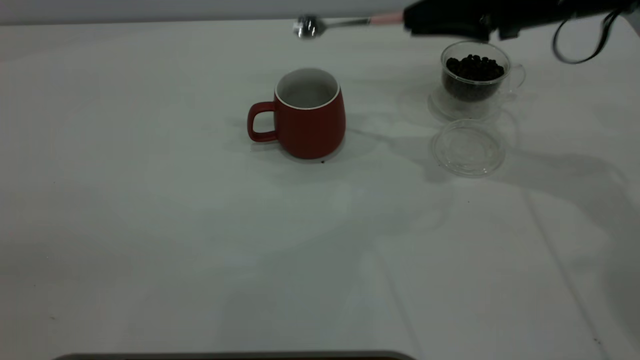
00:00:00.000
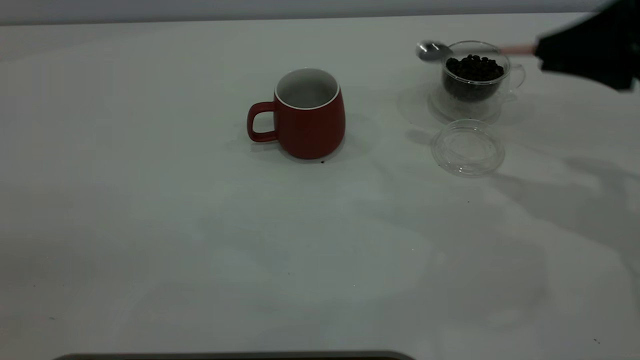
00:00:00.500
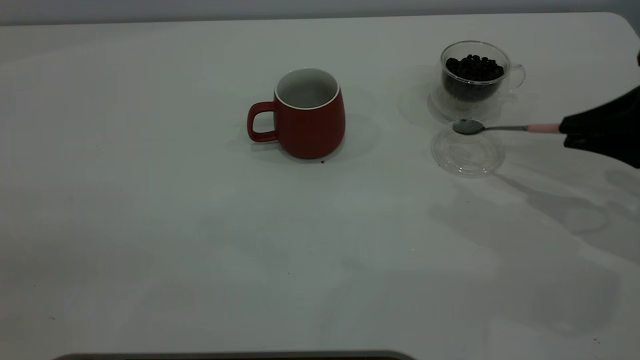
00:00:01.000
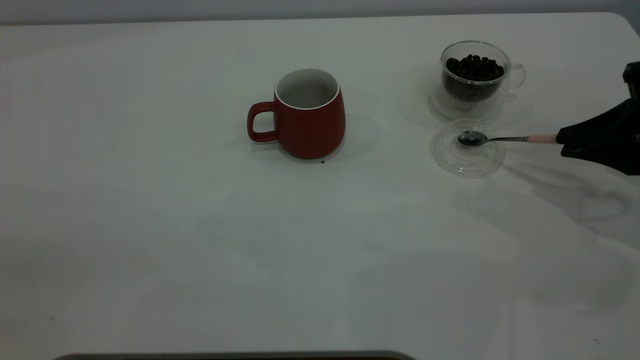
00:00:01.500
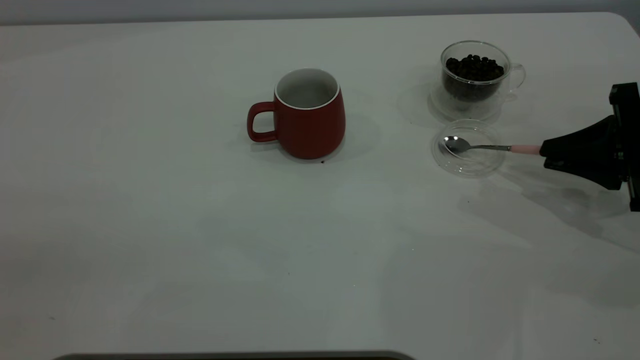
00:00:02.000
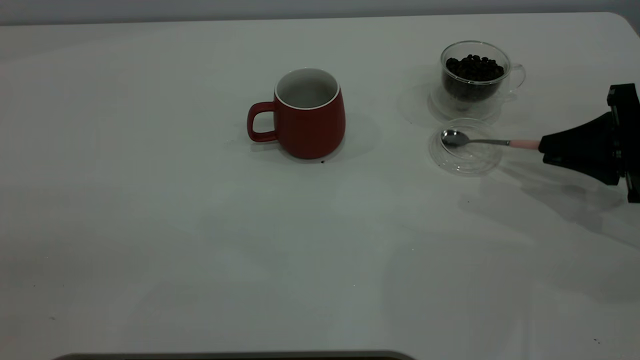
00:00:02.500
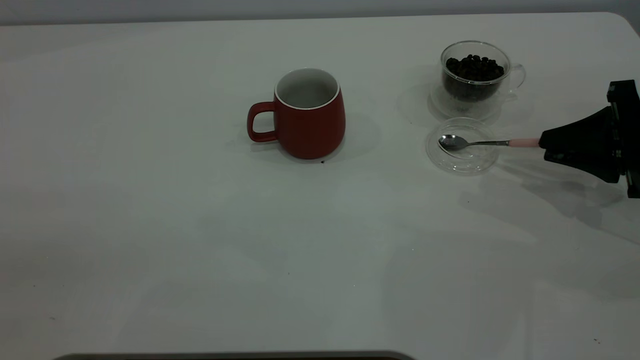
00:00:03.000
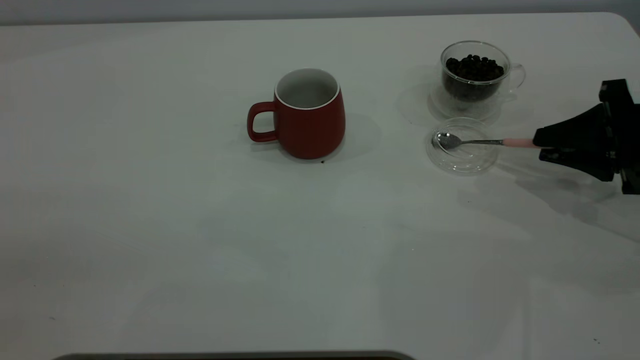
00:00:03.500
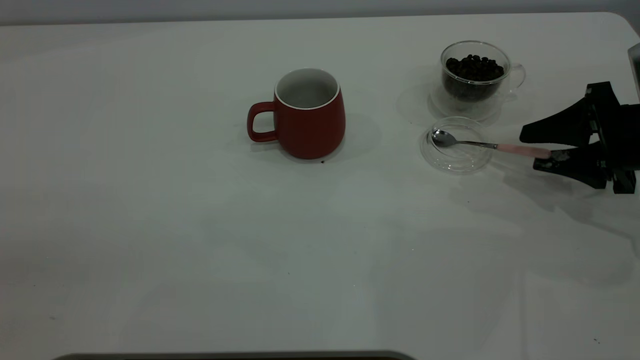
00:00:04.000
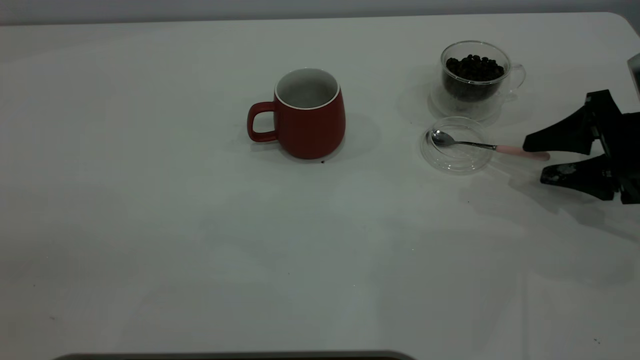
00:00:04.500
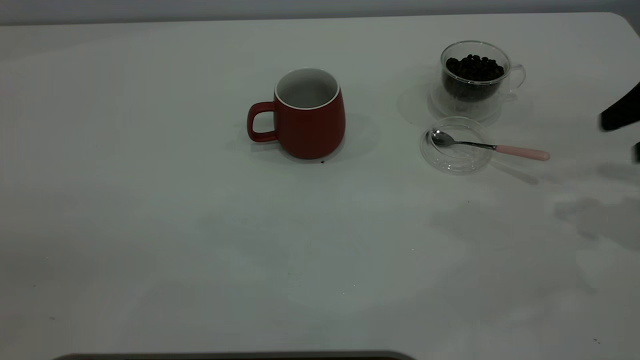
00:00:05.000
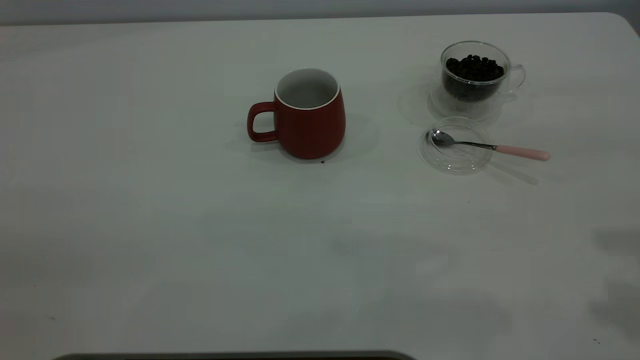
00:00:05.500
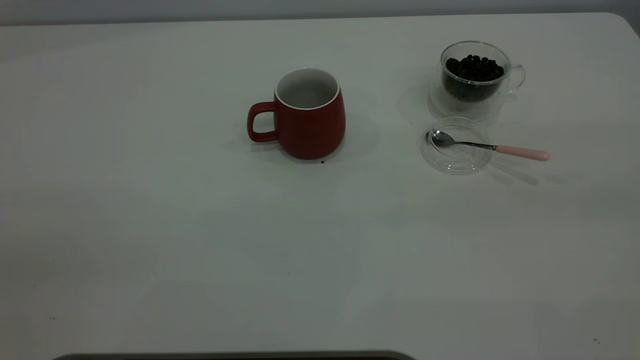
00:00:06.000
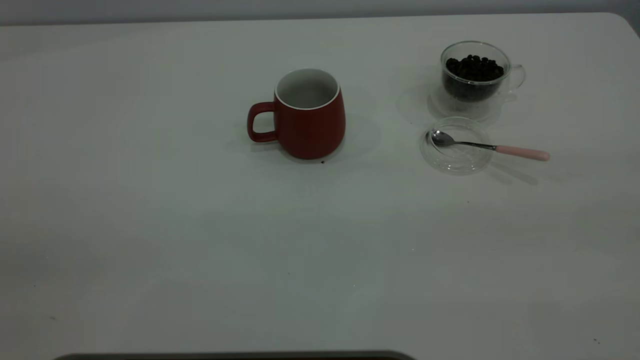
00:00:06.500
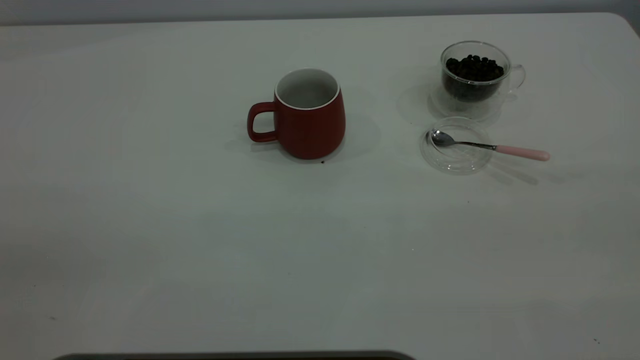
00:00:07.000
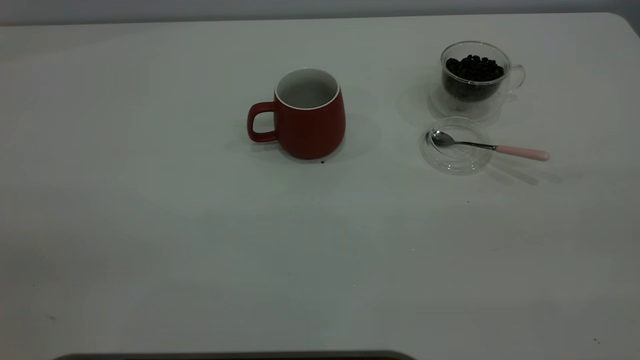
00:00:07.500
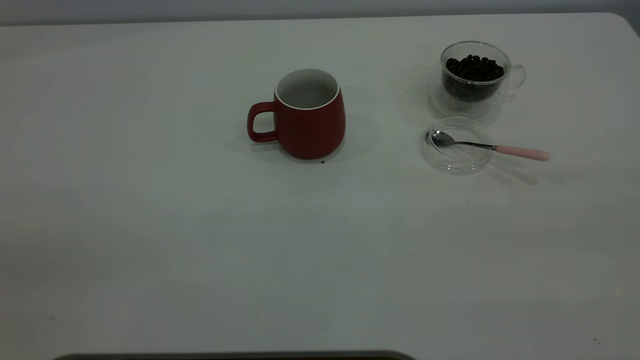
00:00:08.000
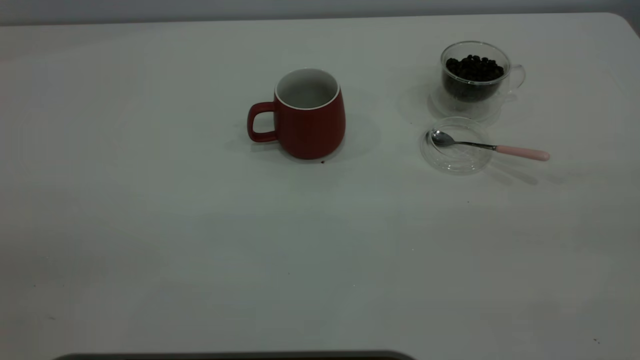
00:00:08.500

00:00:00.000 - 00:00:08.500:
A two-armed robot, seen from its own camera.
Task of the whole recording: the left gripper place the red cup in the center of the table, the right gripper take the pink spoon from the cup lid and scoop out the coffee beans from the coffee cup and put them into the red cup, the right gripper put the spoon back into the cup lid.
Step, 00:00:00.000 - 00:00:04.500: Place the spoon back in its original place.
00:00:00.000 - 00:00:02.000: The right gripper goes approximately 20 cm to the right, downward and backward.
00:00:02.000 - 00:00:04.000: The right gripper opens its fingers.
00:00:04.000 - 00:00:06.500: The right gripper is displaced upward and backward by about 40 cm.

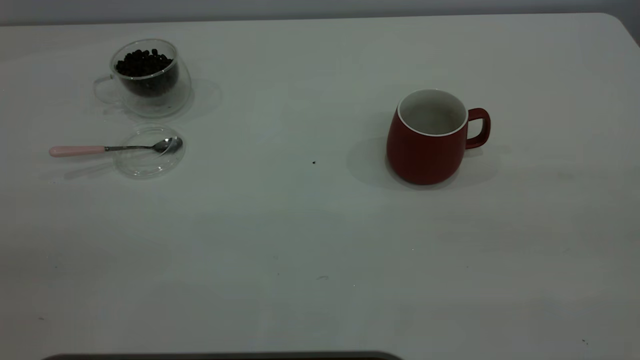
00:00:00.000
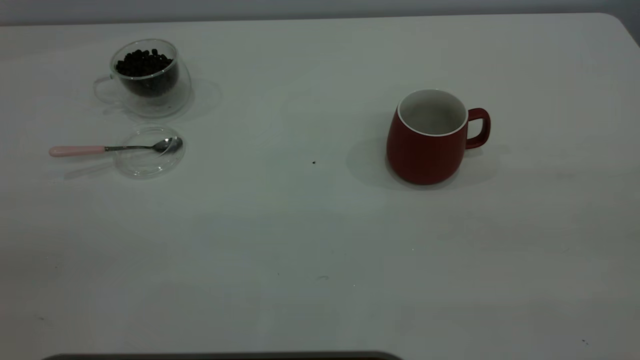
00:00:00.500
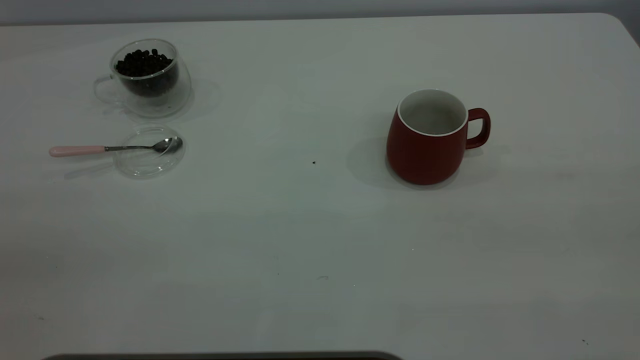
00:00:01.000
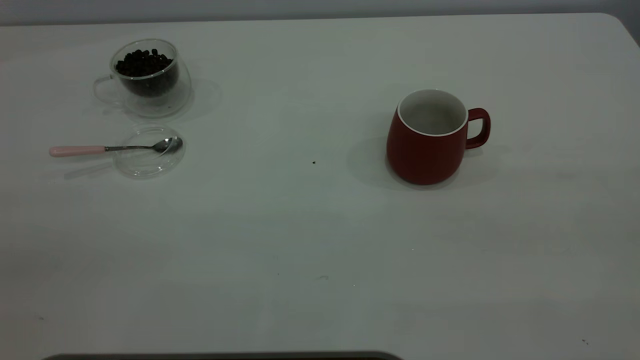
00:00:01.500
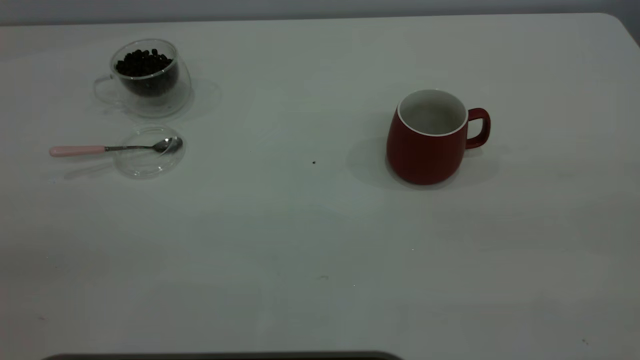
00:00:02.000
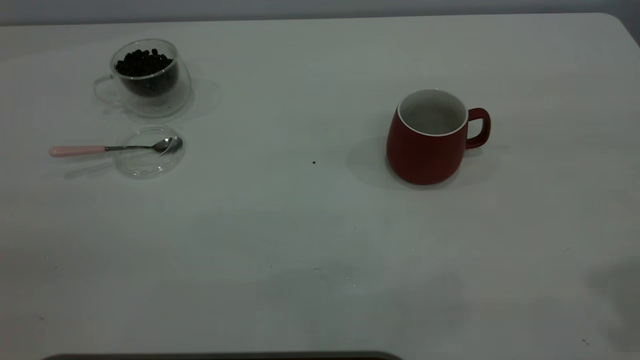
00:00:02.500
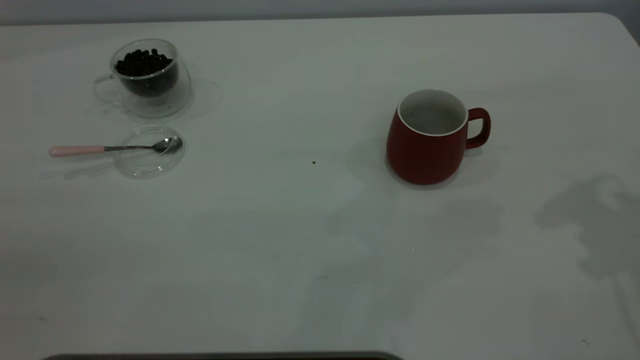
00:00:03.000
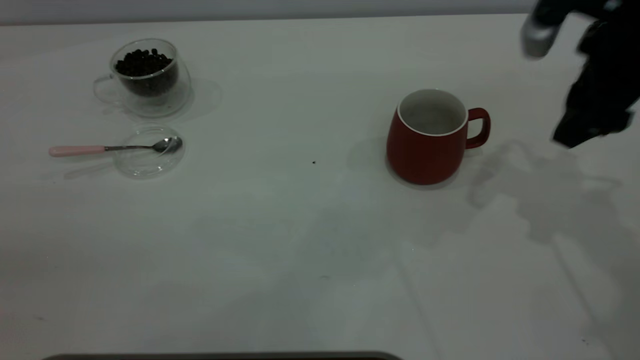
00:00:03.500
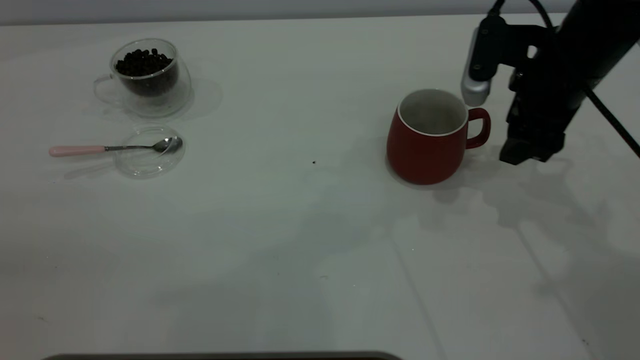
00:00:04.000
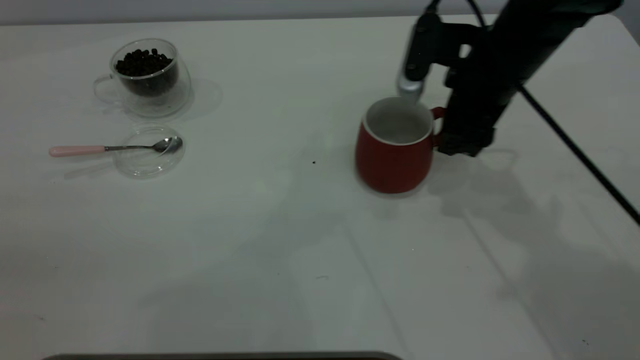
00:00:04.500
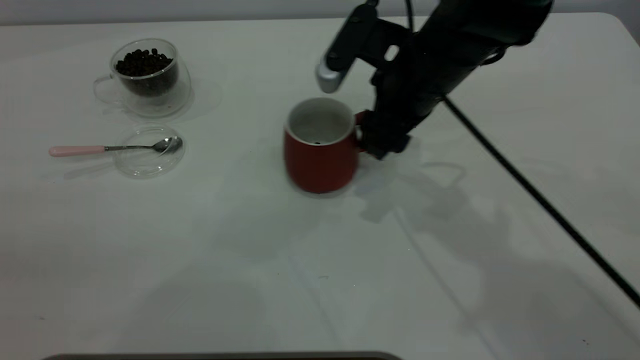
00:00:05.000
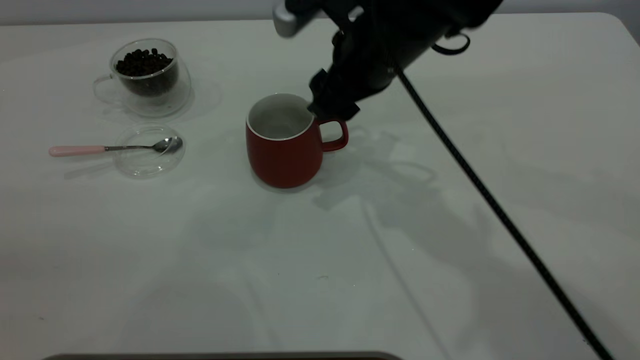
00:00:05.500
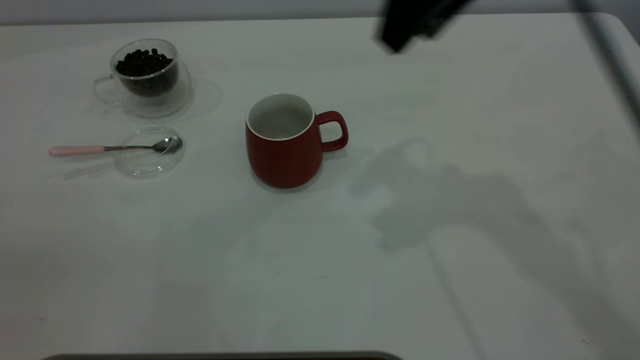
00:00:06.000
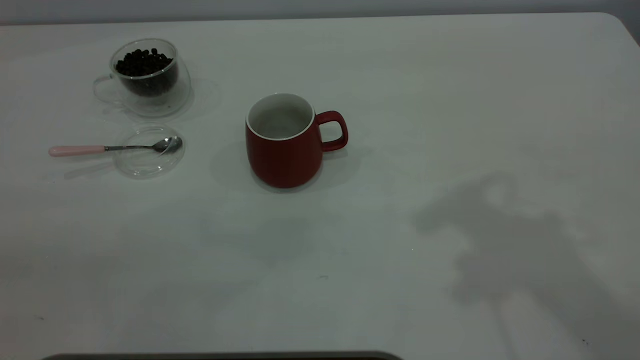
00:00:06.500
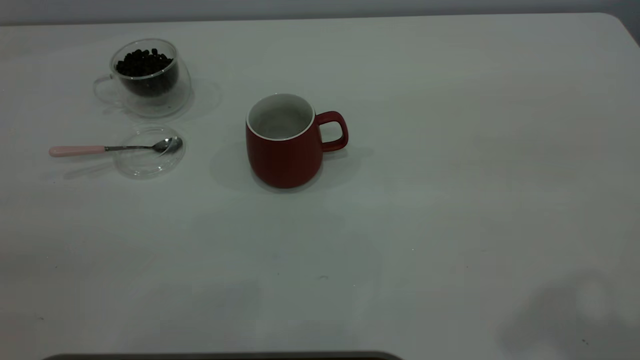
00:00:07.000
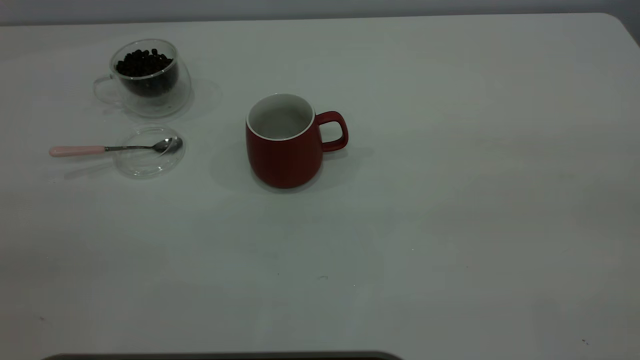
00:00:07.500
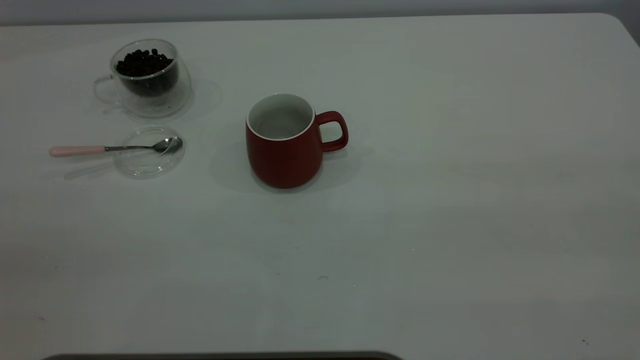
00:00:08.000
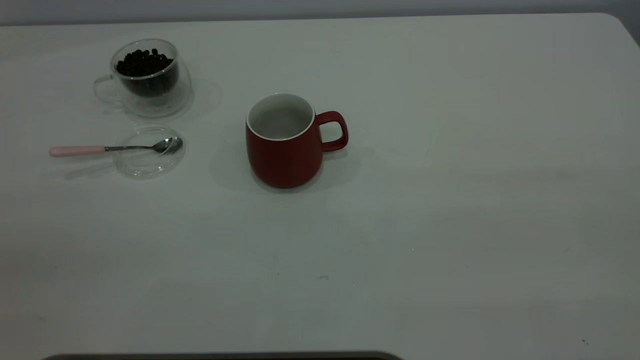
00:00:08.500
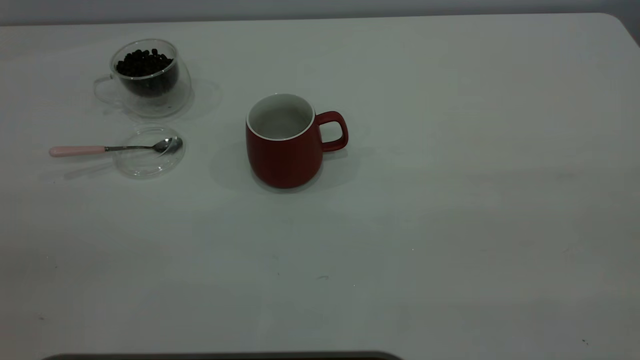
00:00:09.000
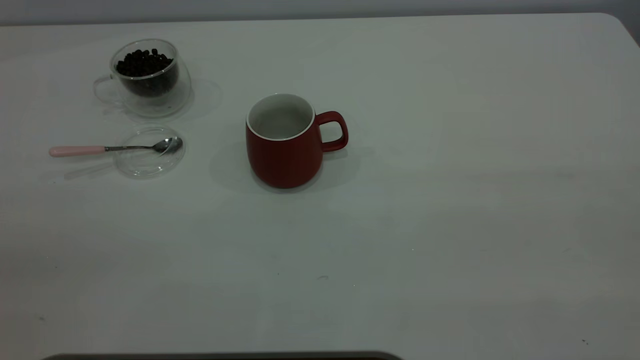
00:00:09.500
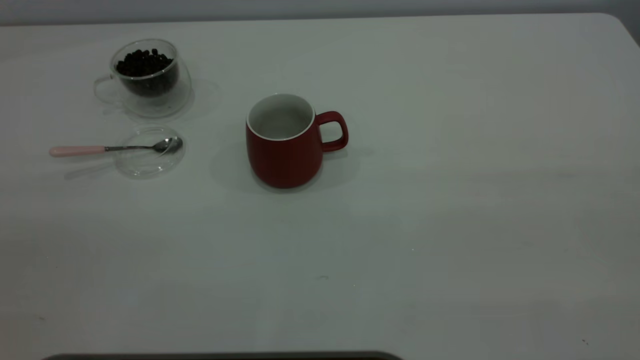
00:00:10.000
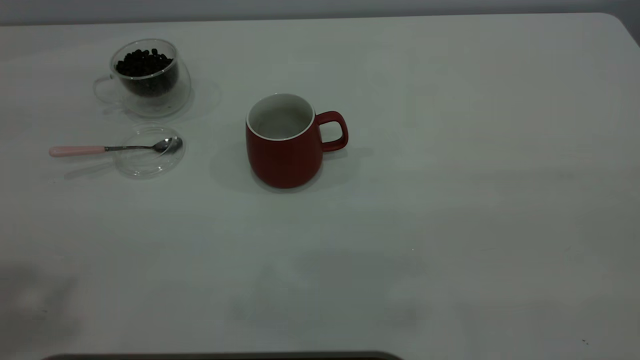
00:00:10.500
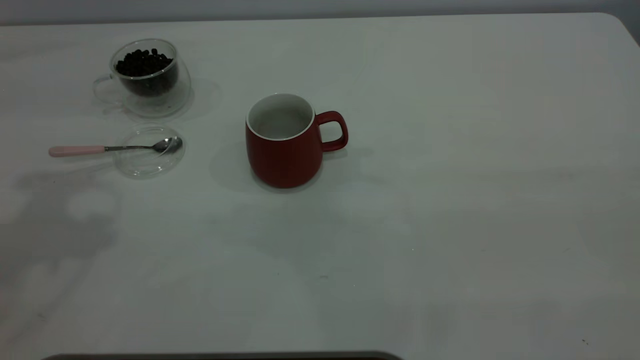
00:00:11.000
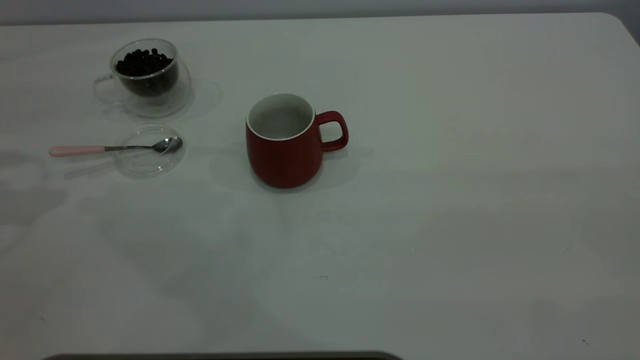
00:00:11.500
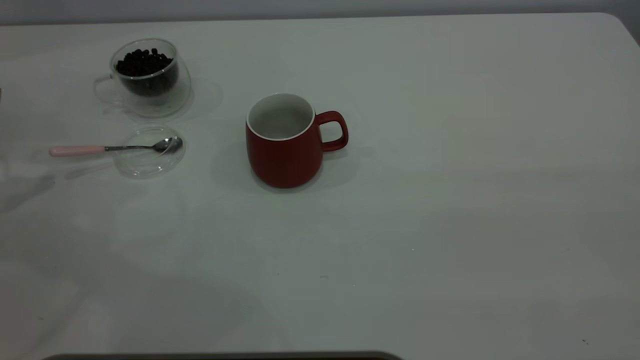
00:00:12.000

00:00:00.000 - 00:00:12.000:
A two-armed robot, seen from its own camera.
Task of the whole recording: the right gripper place the red cup in the center of the table, the left gripper take the pink spoon from the cup lid and scoop out the coffee beans from the coffee cup and put them into the red cup, the left gripper put the spoon back into the cup lid.
Step, 00:00:00.000 - 00:00:05.500: Move the cup to the center of view.
00:00:02.000 - 00:00:04.000: The right gripper travels forward and downward by roughly 40 cm.
00:00:04.000 - 00:00:06.000: The right gripper shifts roughly 20 cm upward and to the left.
00:00:06.000 - 00:00:08.000: The right gripper heads backward and to the right, covering some 35 cm.
